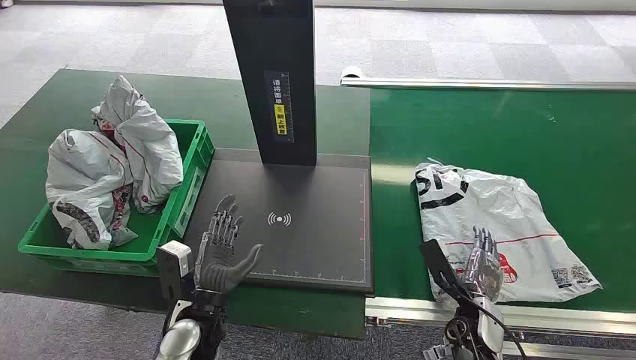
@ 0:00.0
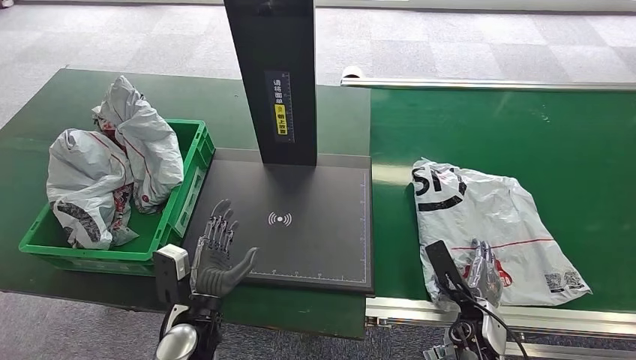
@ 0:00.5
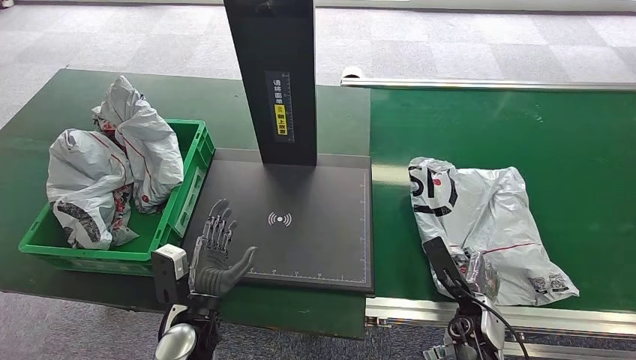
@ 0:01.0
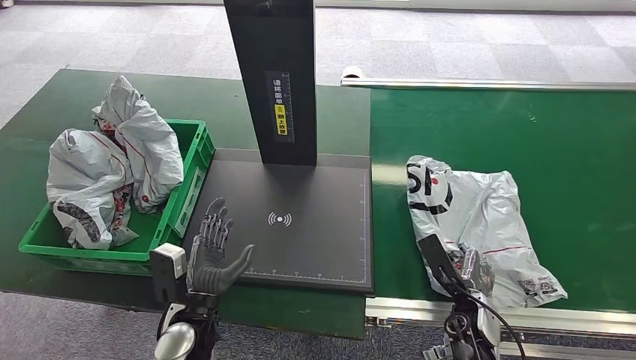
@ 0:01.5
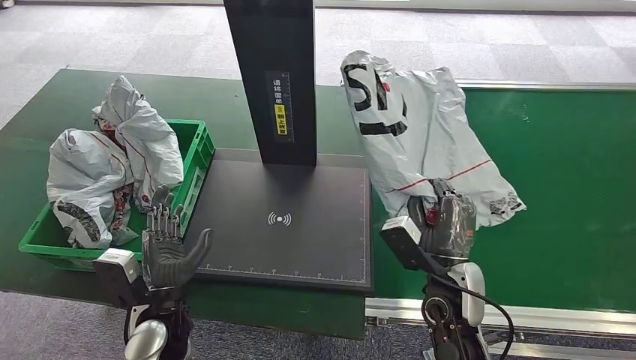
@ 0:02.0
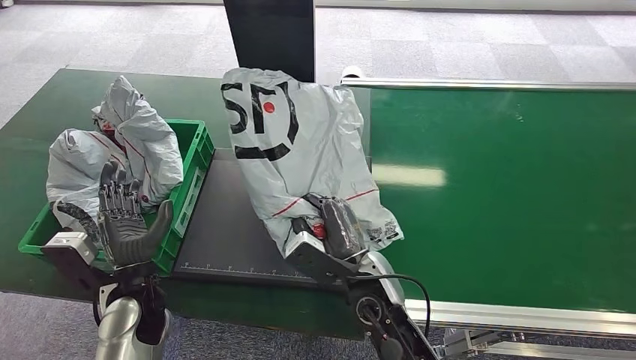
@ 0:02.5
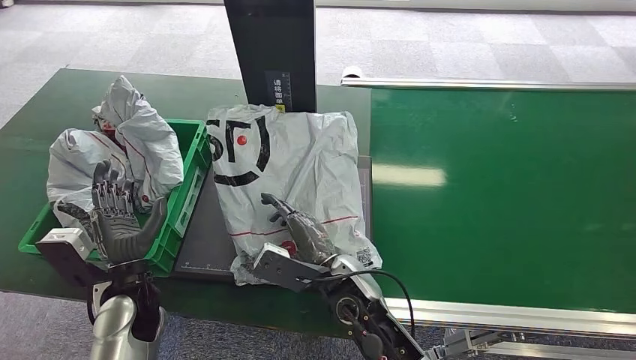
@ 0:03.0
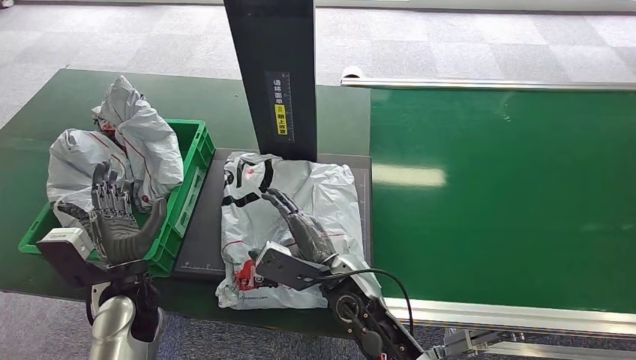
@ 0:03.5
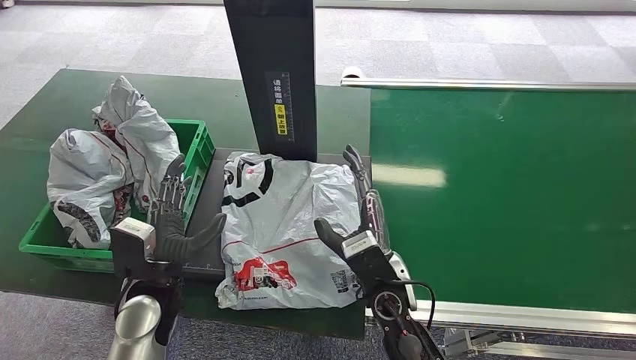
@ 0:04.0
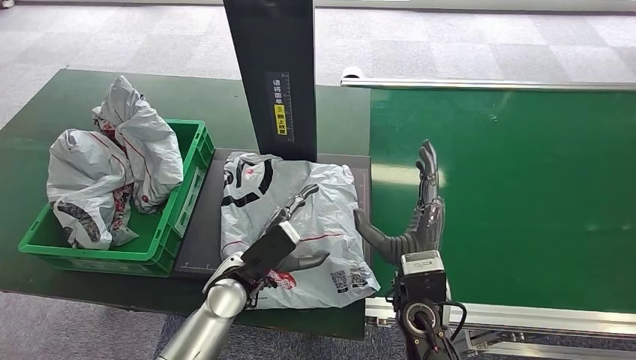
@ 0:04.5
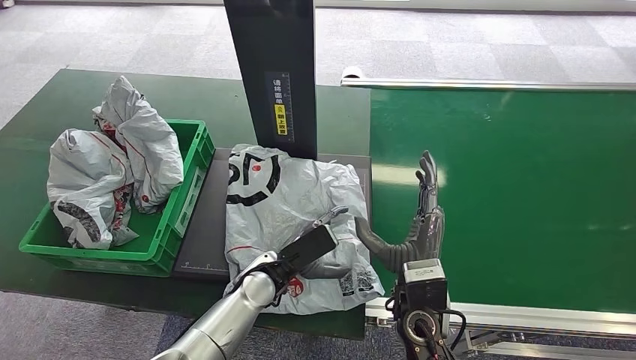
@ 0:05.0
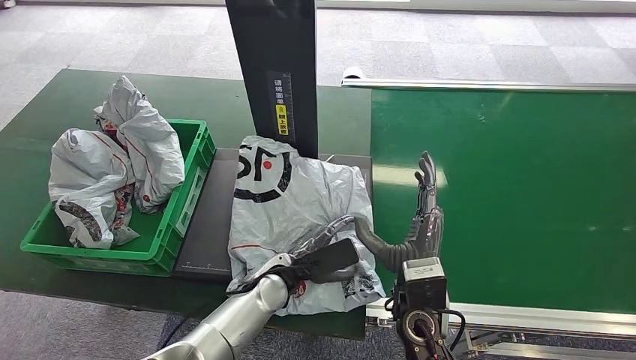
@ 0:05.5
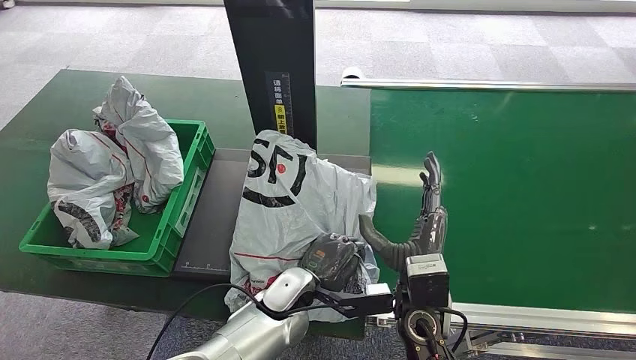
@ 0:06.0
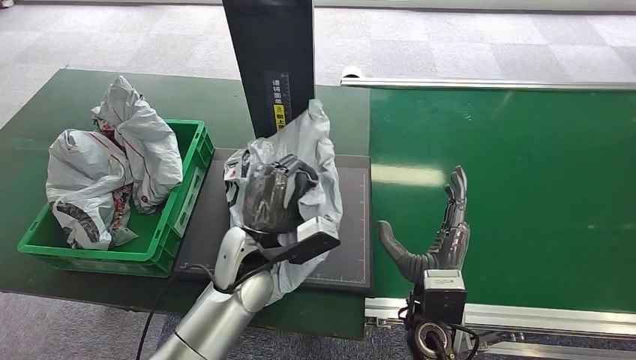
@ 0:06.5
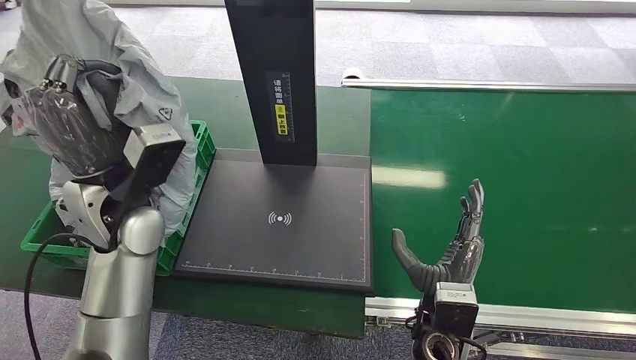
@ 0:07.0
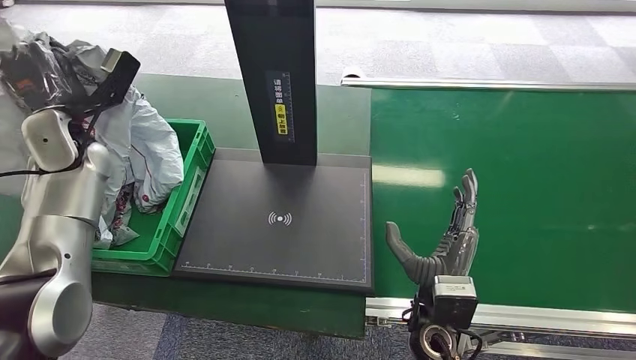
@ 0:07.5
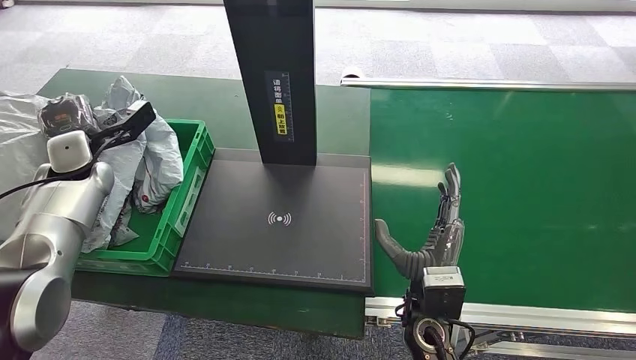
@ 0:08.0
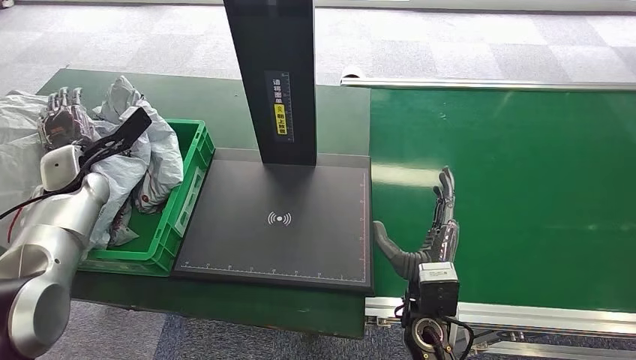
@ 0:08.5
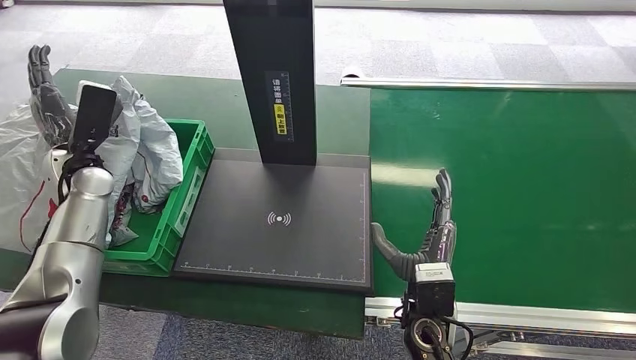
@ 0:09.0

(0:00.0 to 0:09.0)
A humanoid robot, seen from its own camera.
Step, 0:00.0 - 0:02.0: Pick up the package from the conveyor belt.
Step, 0:02.5 - 0:04.5: Place the package onto the inbound machine.
Step, 0:05.0 - 0:07.0: Pick up the package from the inbound machine.
Step, 0:07.5 - 0:09.0: Place the package into the parcel locker.
